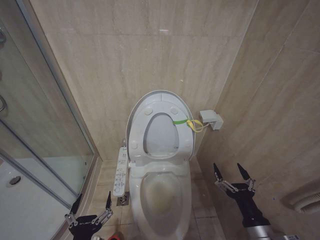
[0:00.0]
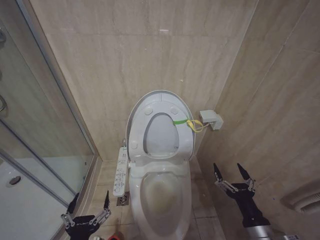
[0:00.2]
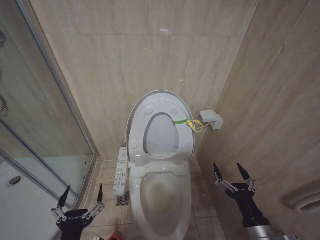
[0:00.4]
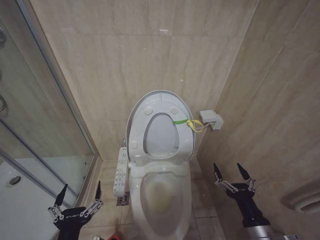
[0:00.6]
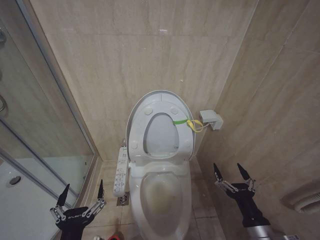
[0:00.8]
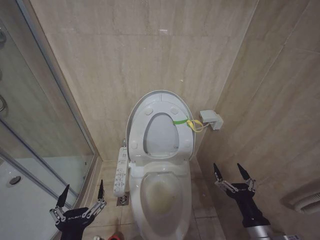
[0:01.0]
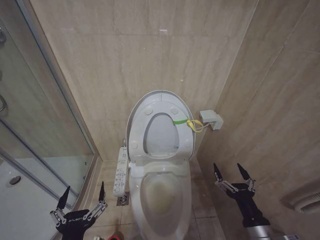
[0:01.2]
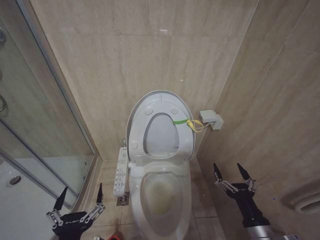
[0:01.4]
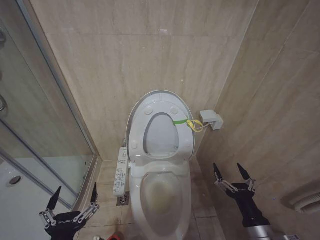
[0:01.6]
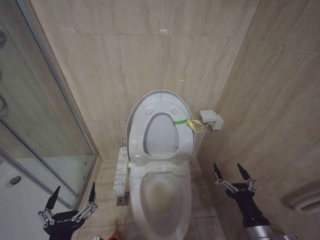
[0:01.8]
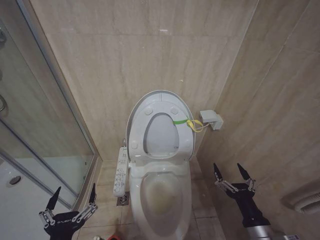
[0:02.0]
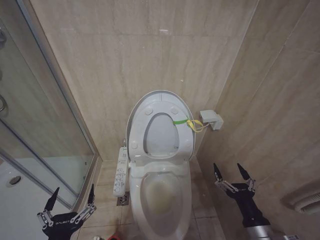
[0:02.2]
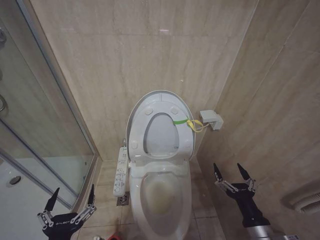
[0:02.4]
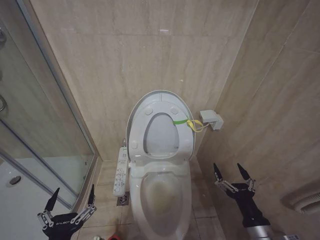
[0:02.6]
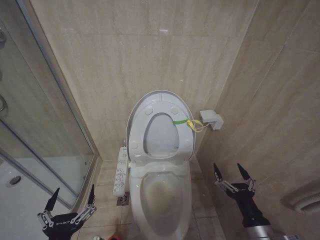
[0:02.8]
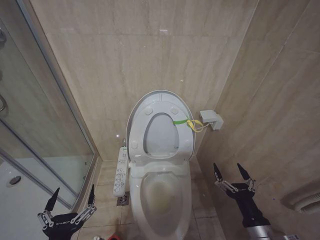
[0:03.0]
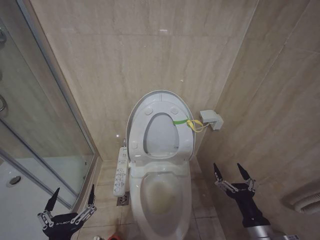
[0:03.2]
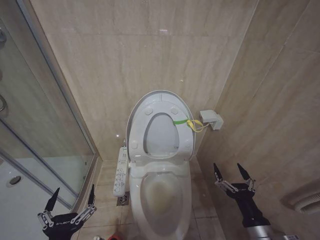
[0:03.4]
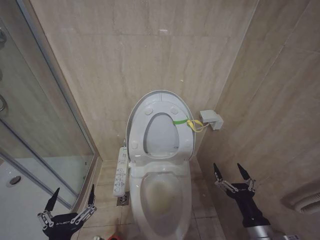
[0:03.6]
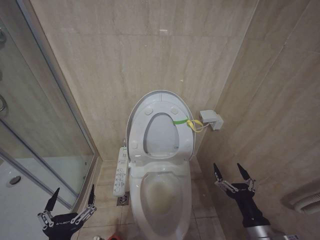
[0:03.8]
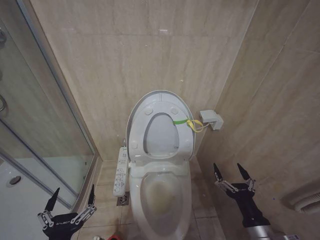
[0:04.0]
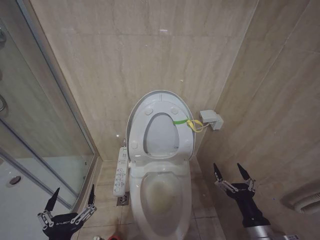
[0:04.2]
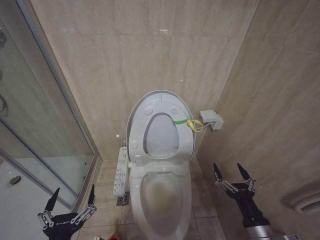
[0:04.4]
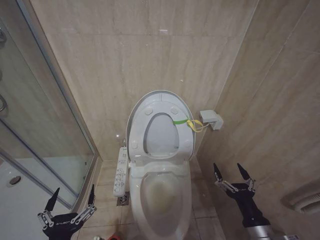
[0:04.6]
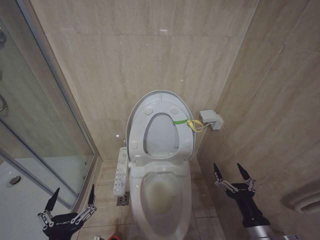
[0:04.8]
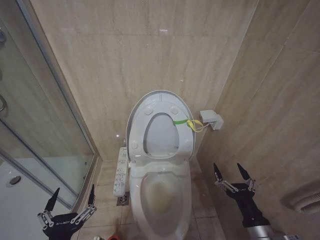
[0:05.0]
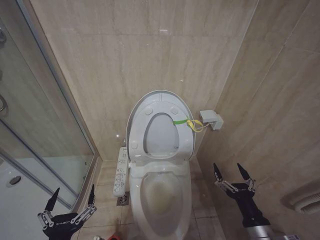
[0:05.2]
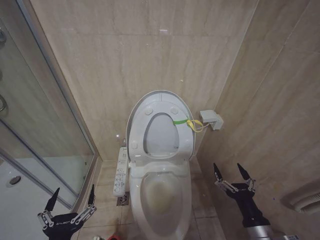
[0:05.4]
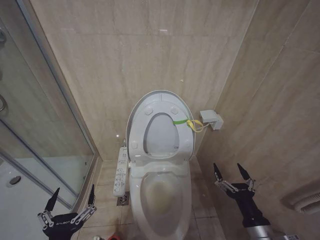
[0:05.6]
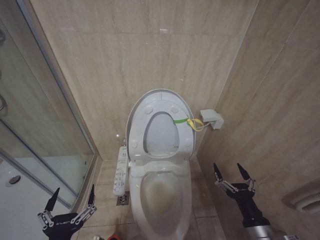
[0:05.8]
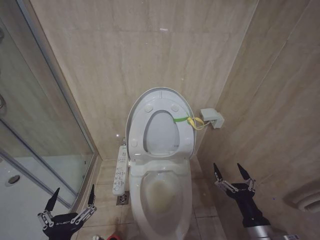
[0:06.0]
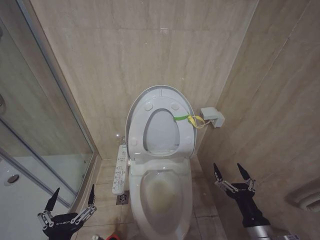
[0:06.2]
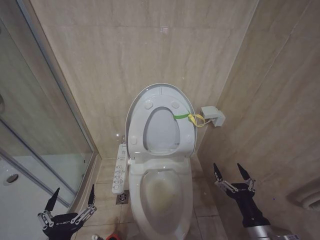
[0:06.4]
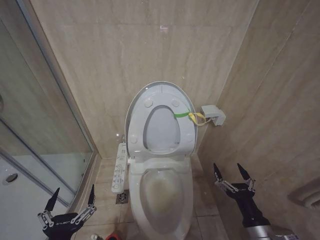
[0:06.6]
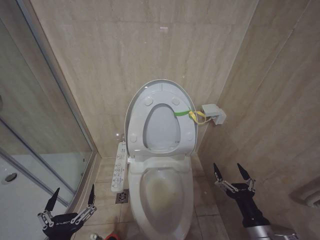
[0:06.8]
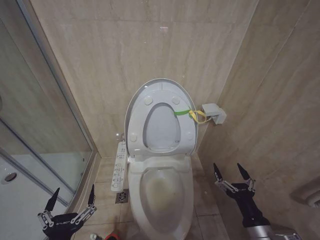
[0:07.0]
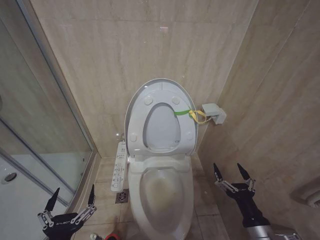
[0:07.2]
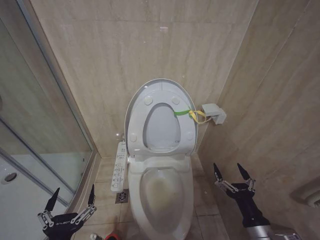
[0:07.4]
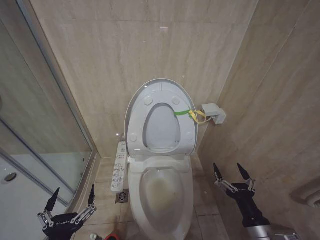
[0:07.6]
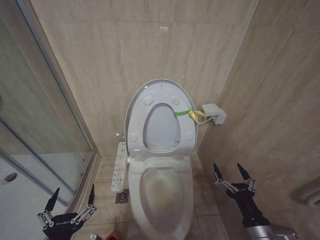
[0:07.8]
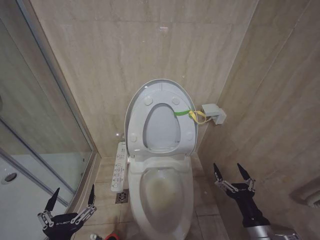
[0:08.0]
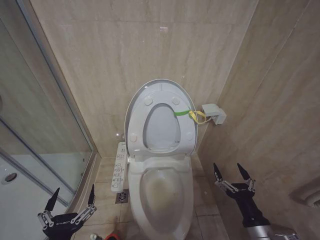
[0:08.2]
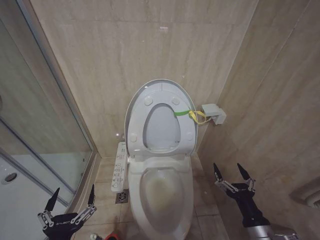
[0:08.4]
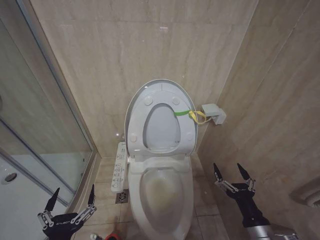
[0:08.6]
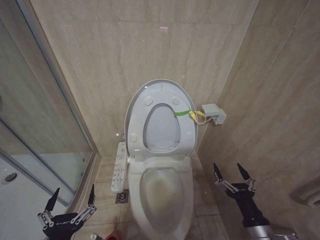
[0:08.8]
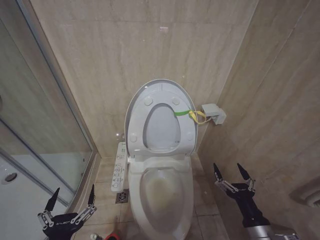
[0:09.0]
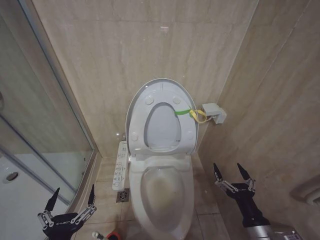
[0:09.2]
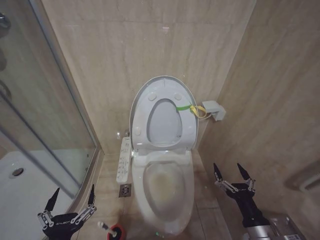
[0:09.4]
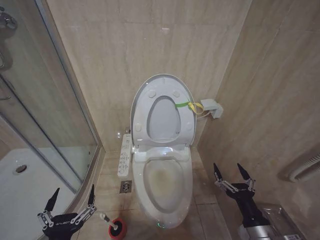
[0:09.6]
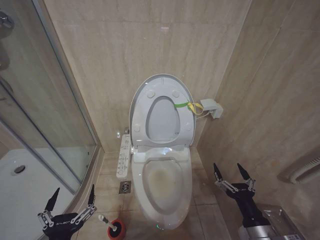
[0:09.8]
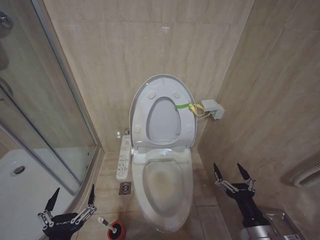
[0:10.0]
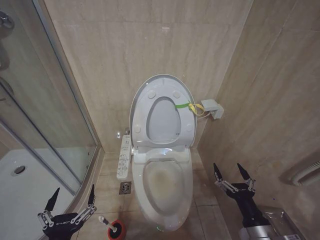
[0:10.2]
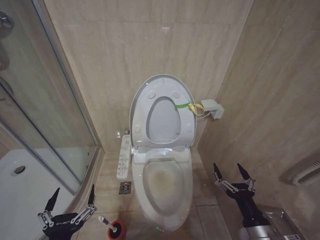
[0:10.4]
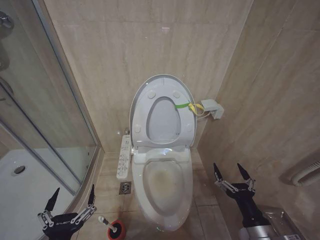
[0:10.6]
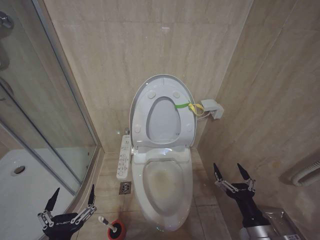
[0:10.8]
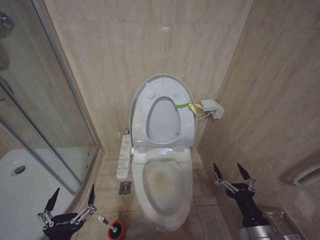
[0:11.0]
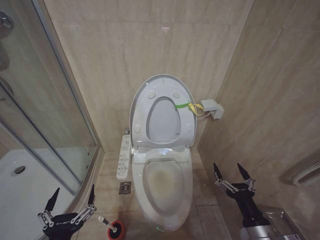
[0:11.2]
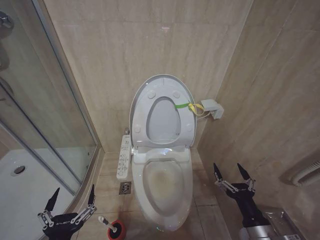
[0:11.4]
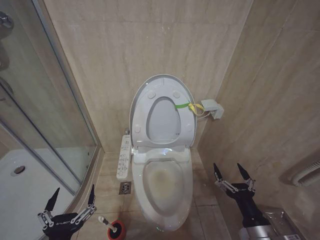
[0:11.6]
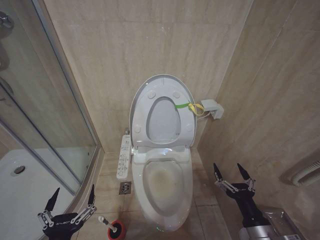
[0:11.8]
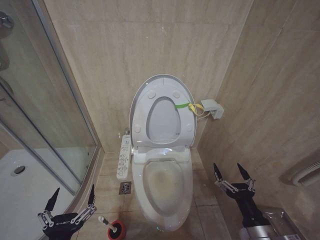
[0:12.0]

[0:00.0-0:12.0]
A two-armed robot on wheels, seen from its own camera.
Task of the whole recording: Open the toilet lid, clean the toilet bowl with a toilet brush, close the toilet lid, and flush.
0:00.0 to 0:03.0: There are only small adjustments of the grippers.
0:03.0 to 0:12.0: The two grippers keep their place.

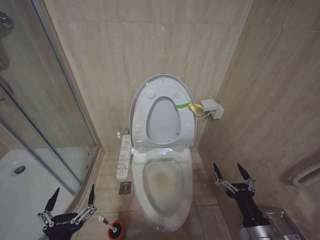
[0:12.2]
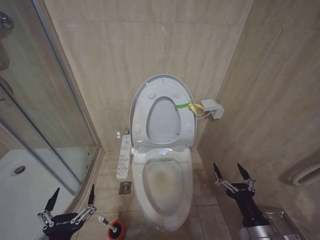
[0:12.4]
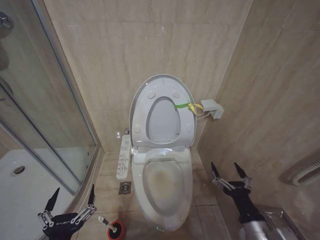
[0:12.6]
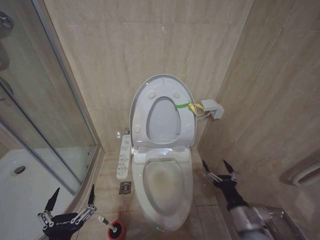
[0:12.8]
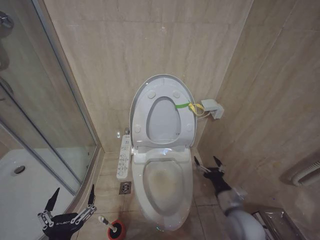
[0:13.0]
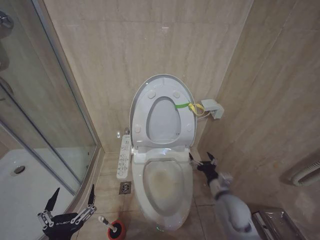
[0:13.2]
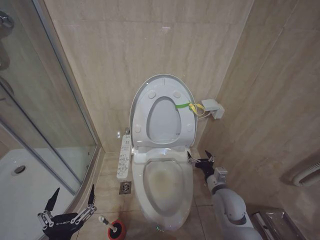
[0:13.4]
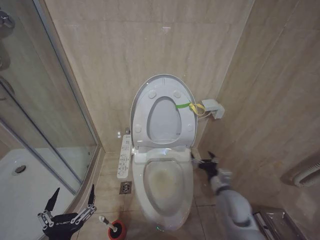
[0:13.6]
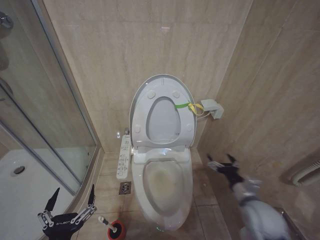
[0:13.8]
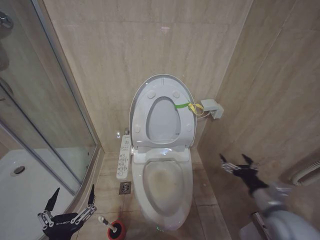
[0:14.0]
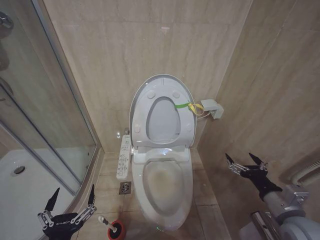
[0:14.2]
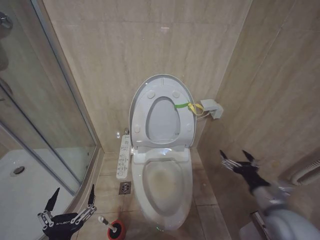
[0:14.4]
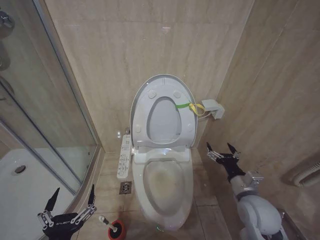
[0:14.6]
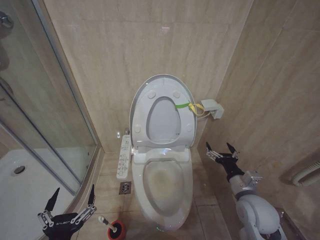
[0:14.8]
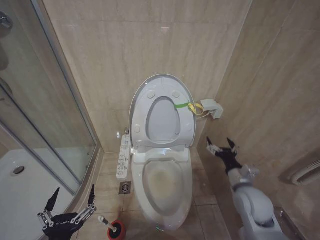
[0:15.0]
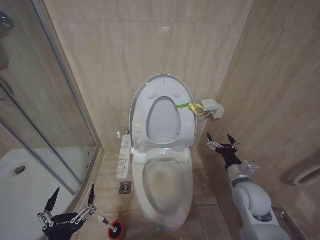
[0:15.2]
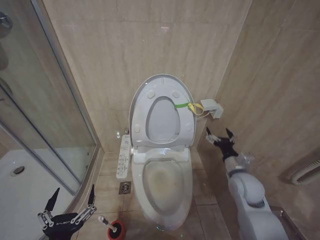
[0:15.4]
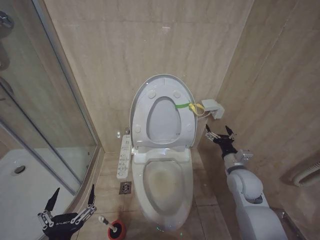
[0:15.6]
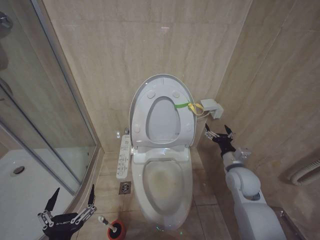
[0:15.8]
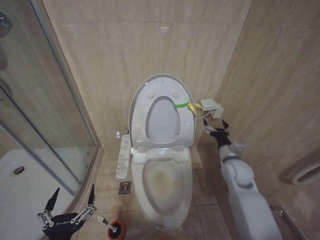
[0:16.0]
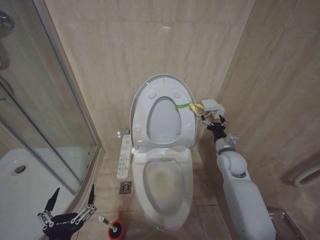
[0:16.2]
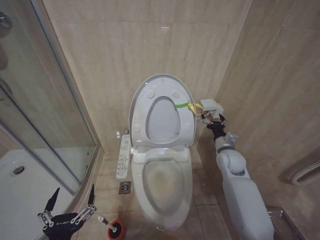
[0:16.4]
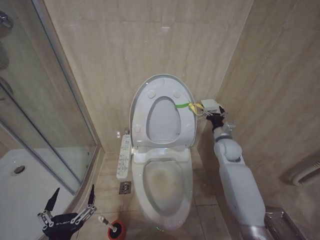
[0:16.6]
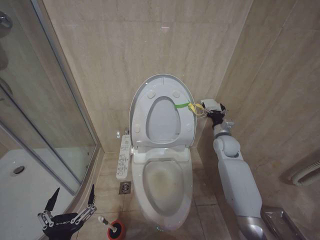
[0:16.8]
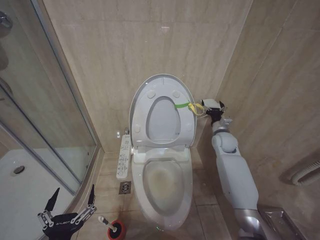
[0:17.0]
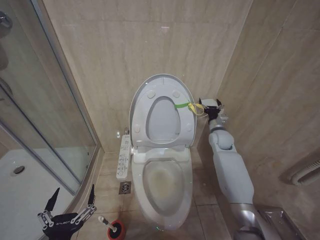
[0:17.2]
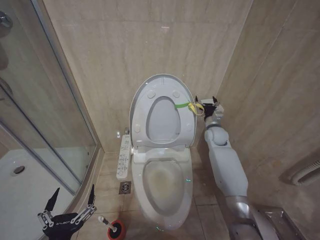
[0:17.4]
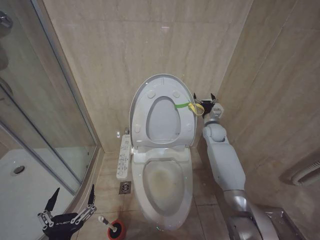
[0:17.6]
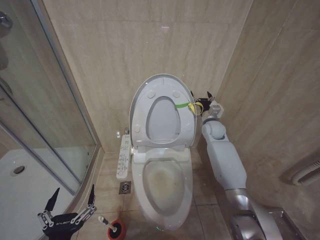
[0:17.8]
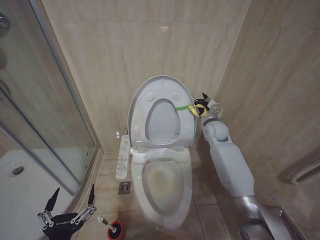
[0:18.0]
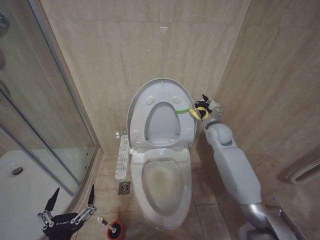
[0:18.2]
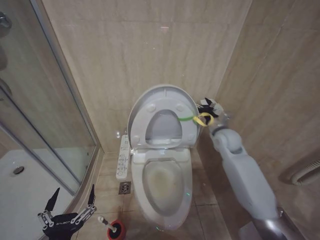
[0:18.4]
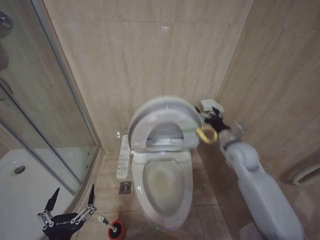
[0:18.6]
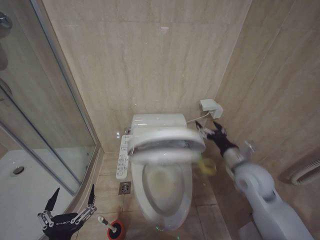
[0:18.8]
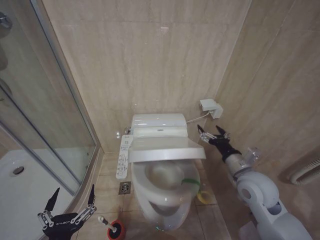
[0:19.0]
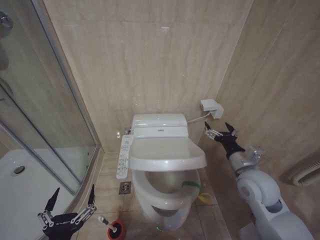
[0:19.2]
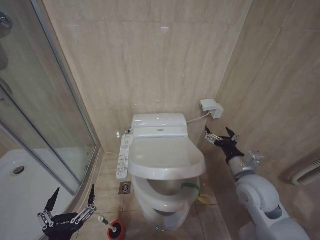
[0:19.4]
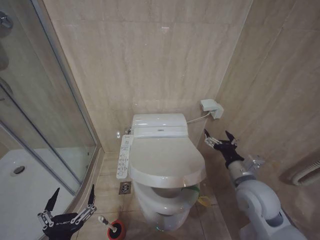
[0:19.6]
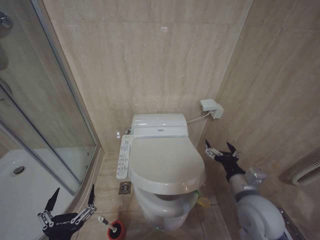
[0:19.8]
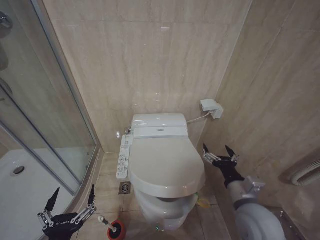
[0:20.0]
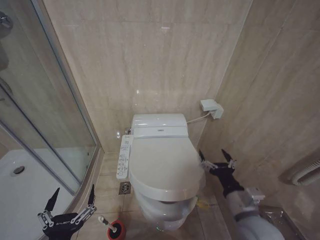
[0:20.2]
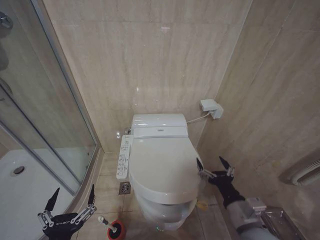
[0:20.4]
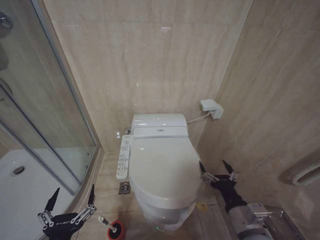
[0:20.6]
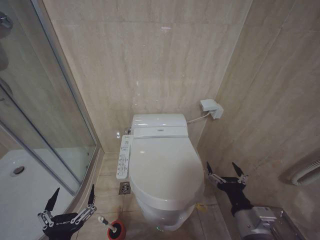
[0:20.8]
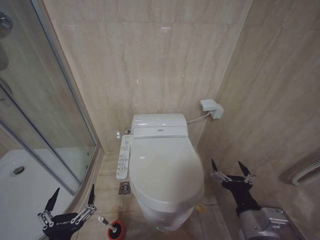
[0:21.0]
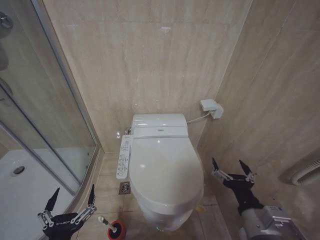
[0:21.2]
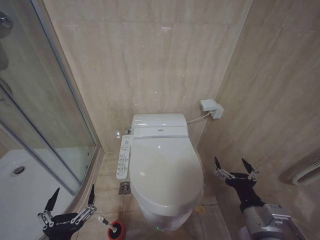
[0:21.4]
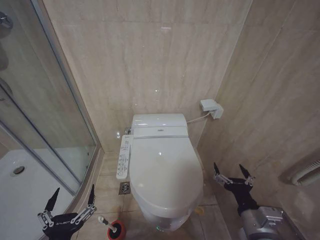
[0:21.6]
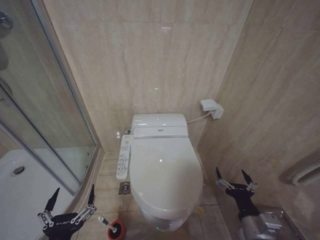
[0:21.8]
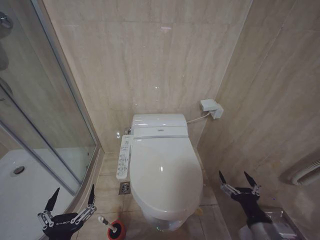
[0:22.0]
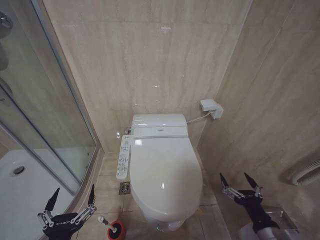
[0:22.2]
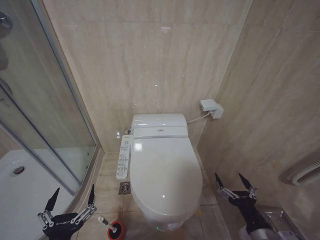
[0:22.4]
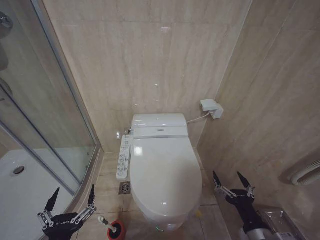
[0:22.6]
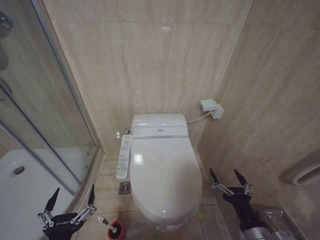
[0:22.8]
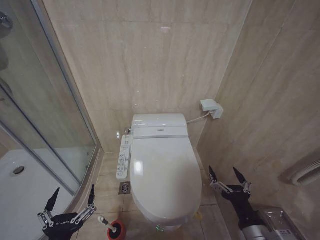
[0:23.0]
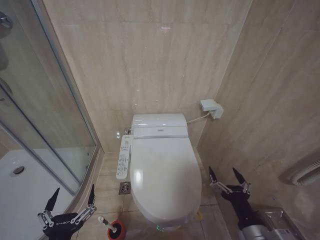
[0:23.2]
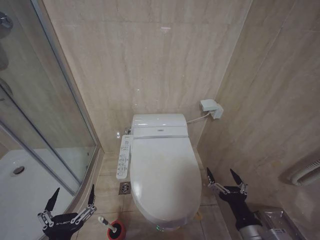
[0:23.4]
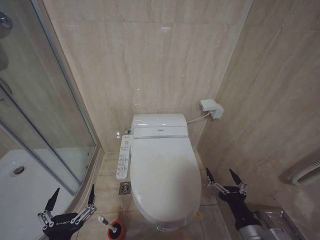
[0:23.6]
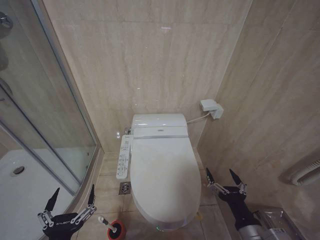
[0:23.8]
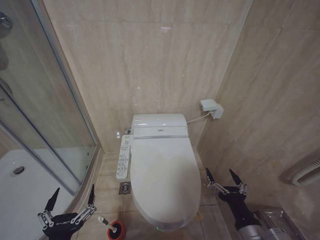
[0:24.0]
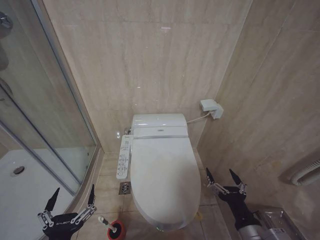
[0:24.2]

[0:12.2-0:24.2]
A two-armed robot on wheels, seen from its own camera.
Task of the whole recording: Open the toilet lid, clean the toilet bowl with a toilet brush, close the toilet lid, and flush.
0:12.2 to 0:13.8: The right gripper is displaced forward by approximately 15 cm.
0:13.8 to 0:15.2: The right gripper moves some 10 cm backward and comes back.
0:15.2 to 0:16.6: The right gripper is displaced forward by about 15 cm.
0:16.6 to 0:18.2: The right gripper is displaced forward and upward by approximately 10 cm.
0:18.2 to 0:19.8: The right gripper shifts some 25 cm backward.
0:19.8 to 0:21.2: The right gripper heads backward, covering roughly 10 cm.
0:21.2 to 0:22.6: The right gripper travels downward by roughly 5 cm.
0:22.6 to 0:24.2: The grippers stay close to where they were, moving slightly.
